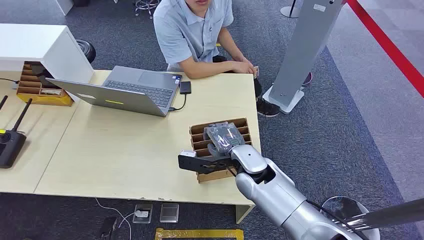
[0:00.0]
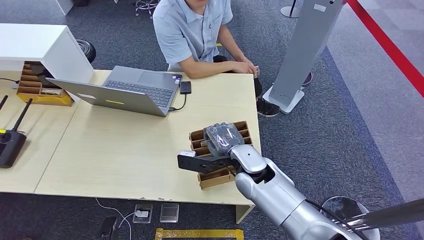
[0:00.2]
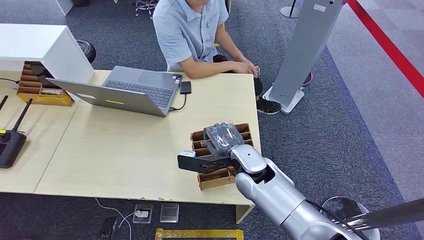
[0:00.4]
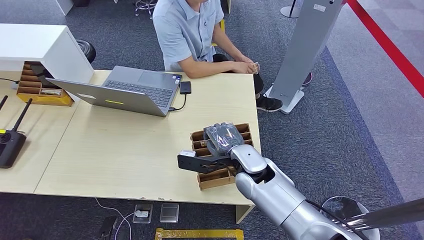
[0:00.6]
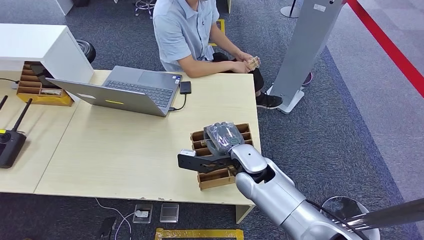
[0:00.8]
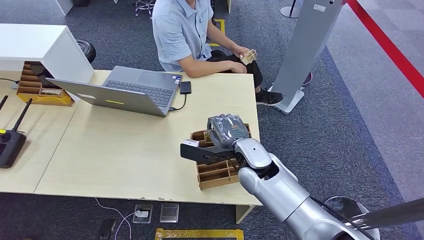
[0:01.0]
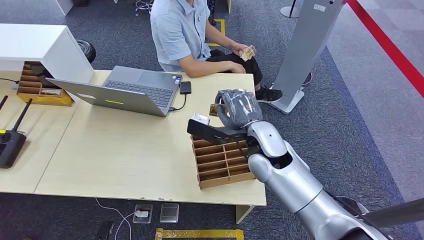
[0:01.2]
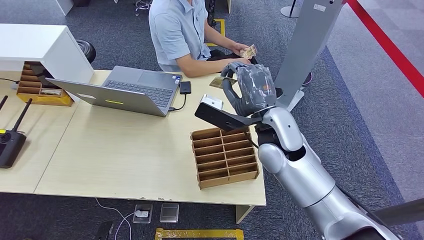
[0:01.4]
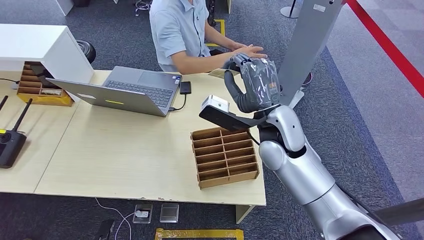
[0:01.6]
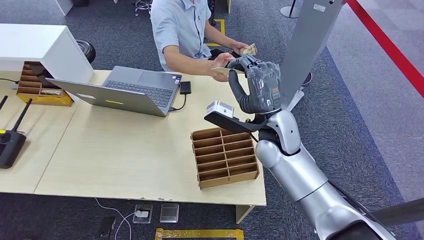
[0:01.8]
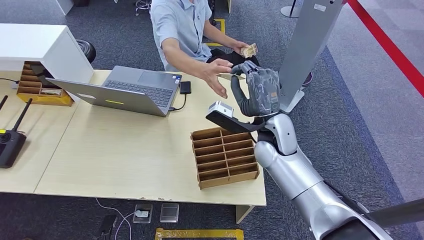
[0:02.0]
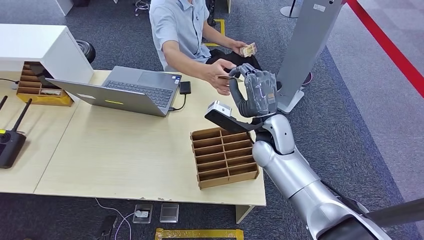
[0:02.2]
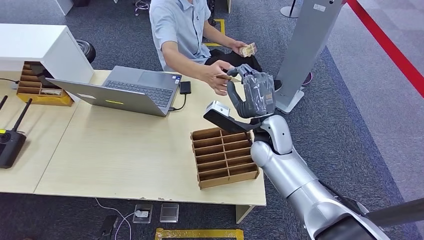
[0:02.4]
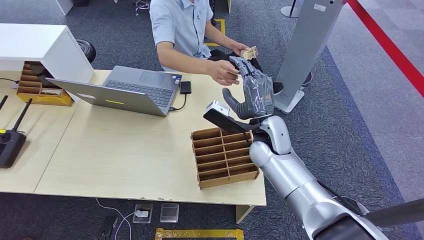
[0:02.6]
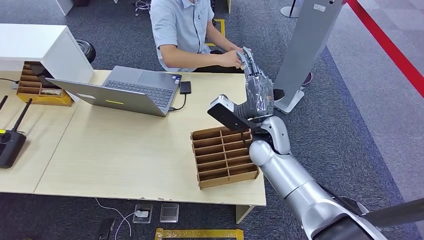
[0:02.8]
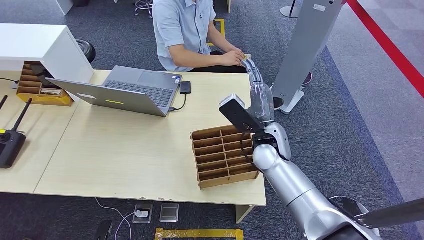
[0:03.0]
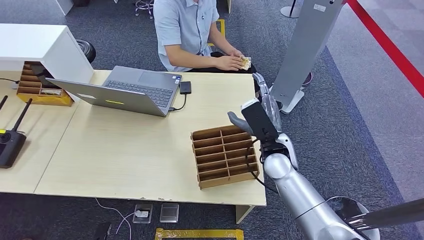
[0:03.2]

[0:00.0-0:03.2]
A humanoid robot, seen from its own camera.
Step, 0:00.0 to 0:01.4: Pick up the key card from the card box.
Step, 0:02.4 to 0:03.2: Hand the key card to the target.
0:01.6 to 0:03.2: The right hand travels downward by about 10 cm.
